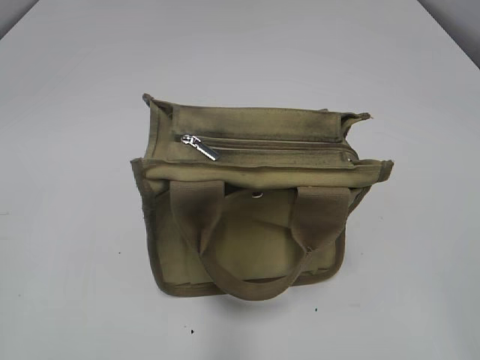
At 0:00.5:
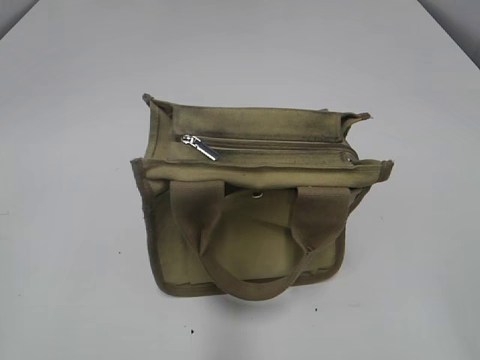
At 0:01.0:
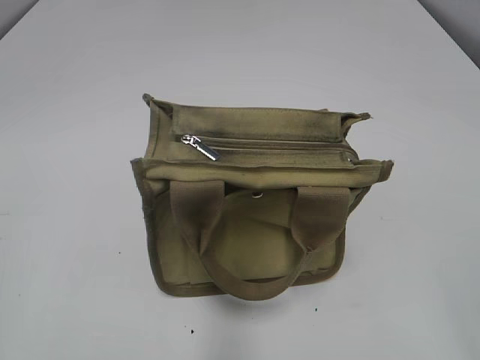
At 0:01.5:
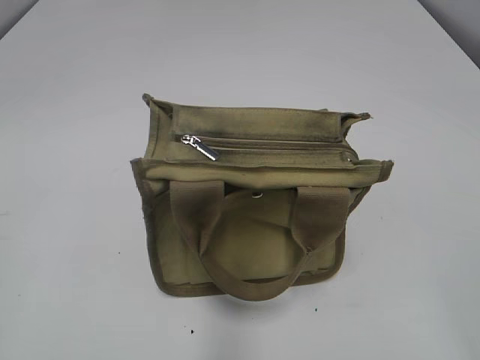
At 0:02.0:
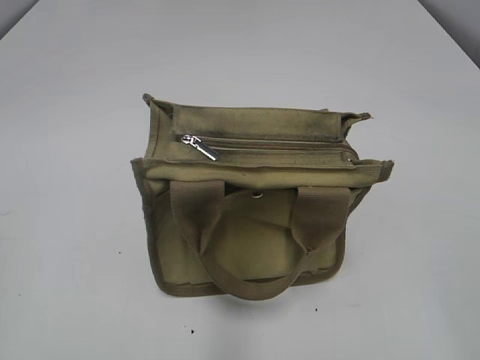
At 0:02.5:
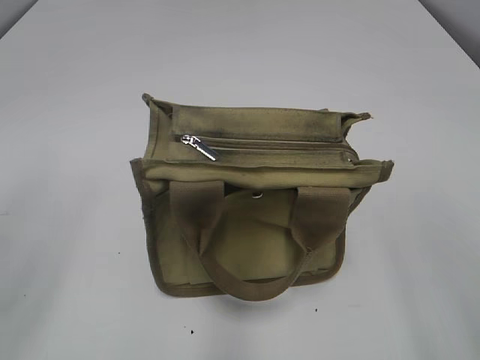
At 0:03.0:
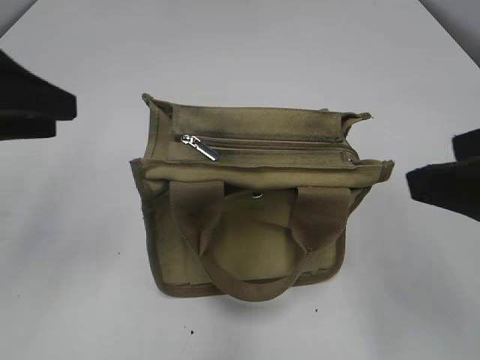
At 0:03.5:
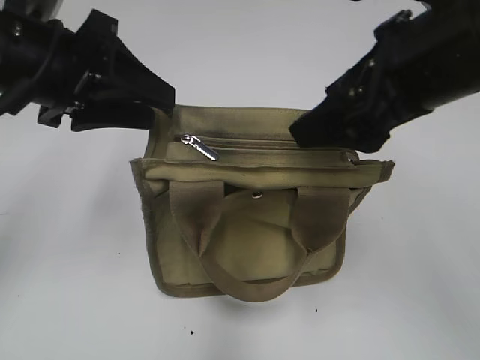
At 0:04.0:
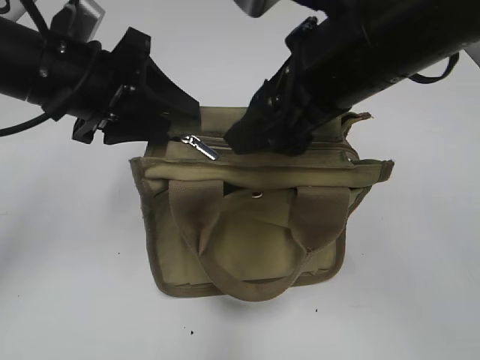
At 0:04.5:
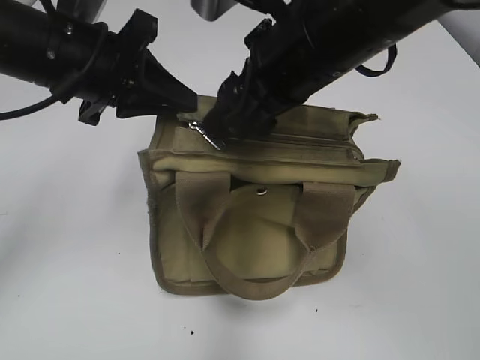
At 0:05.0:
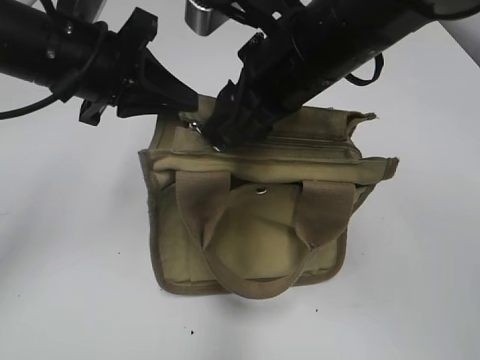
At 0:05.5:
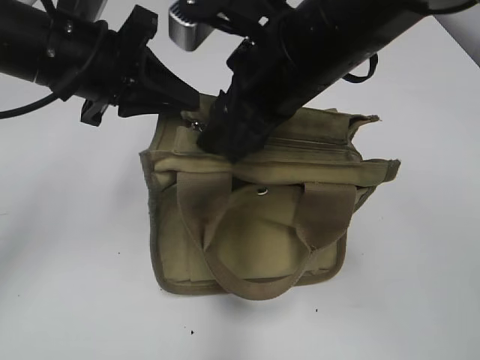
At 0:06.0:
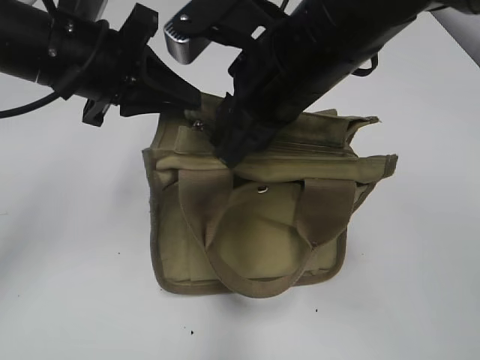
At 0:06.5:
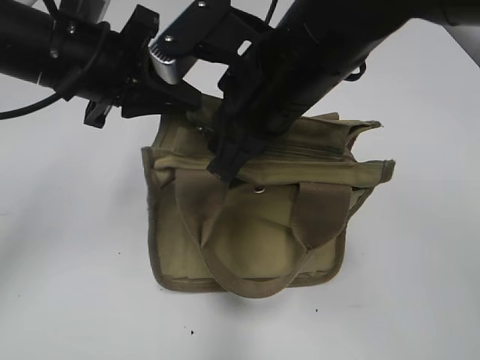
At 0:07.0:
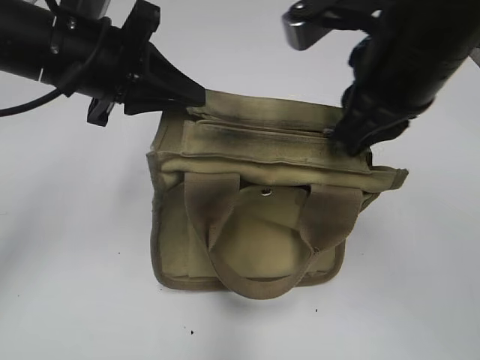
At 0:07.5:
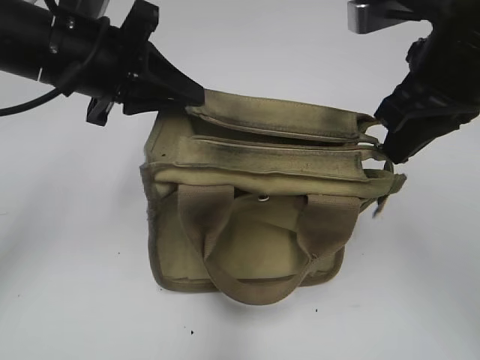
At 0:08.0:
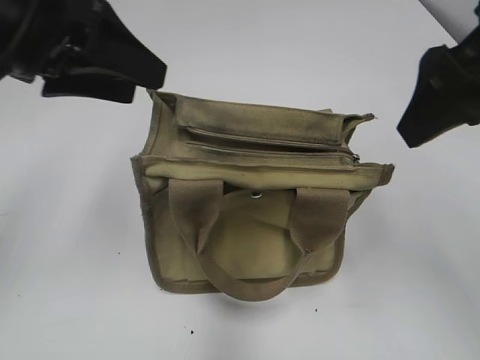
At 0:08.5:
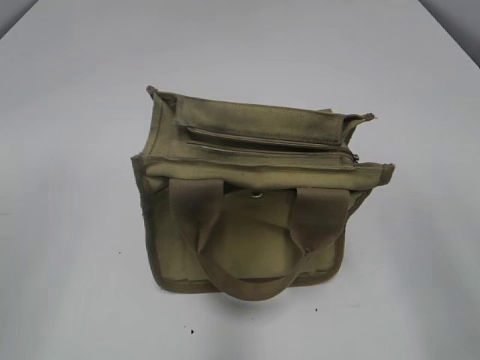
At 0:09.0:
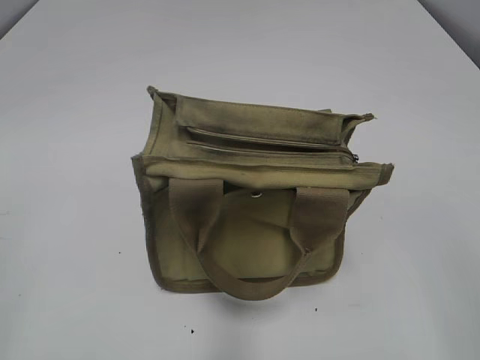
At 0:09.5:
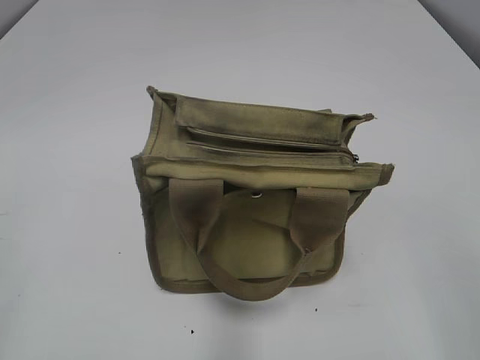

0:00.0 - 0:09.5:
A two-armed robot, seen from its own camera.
Step, 0:00.0 - 0:07.5: Pull open the zipper with your right hand.
0:02.0 - 0:04.0: The left gripper heads forward and to the right, covering some 35 cm, while the right gripper heads forward and to the left, covering roughly 30 cm.
0:04.0 - 0:05.5: The right gripper moves approximately 5 cm, and closes. Meanwhile the left gripper closes.
0:05.5 - 0:07.5: The right gripper heads to the right, covering approximately 10 cm, and closes up.
0:07.5 - 0:09.5: The right gripper travels backward and to the right by approximately 25 cm, and opens its fingers. Meanwhile the left gripper travels backward and to the left by approximately 30 cm, and opens.

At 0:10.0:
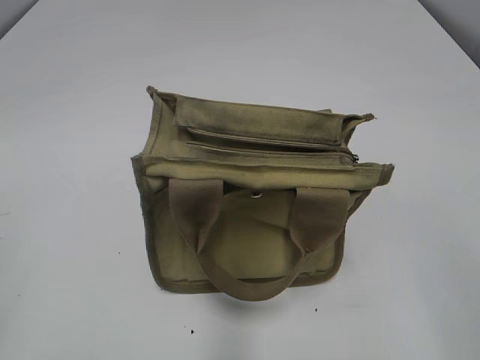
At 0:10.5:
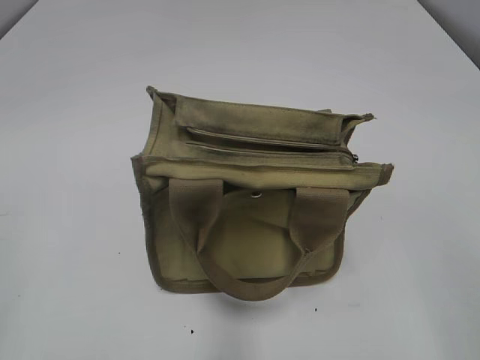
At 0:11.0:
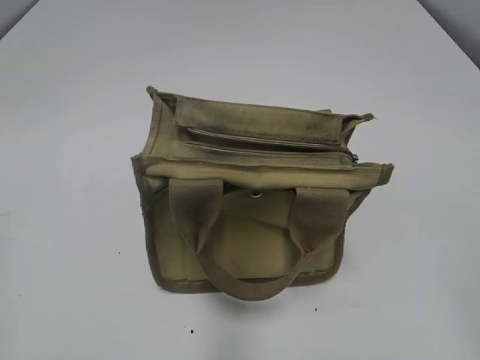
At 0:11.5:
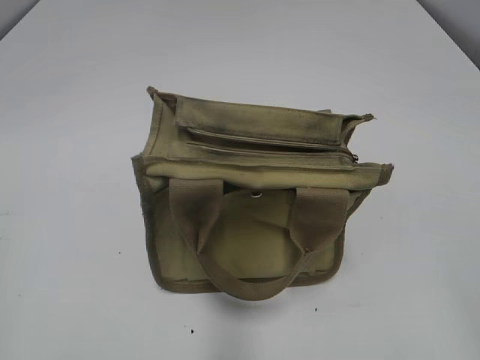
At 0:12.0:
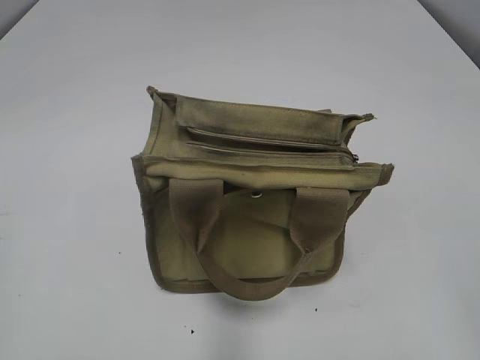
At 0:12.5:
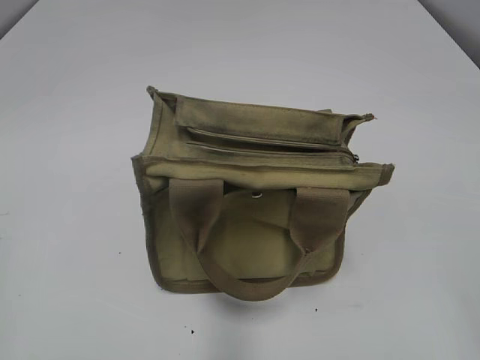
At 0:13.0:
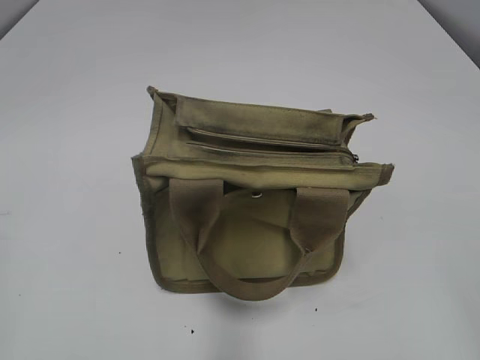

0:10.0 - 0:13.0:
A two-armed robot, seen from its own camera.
0:11.5 - 0:13.0: Both grippers stay put.

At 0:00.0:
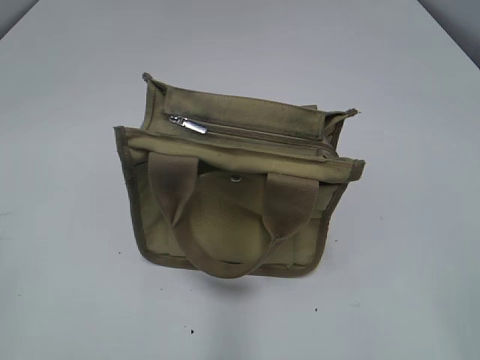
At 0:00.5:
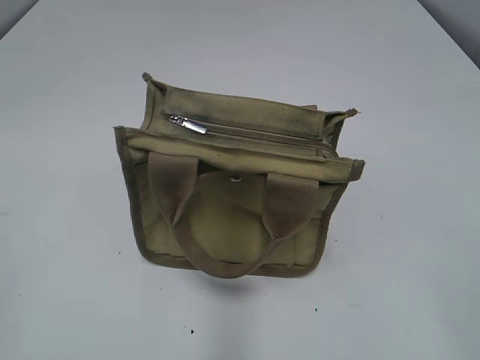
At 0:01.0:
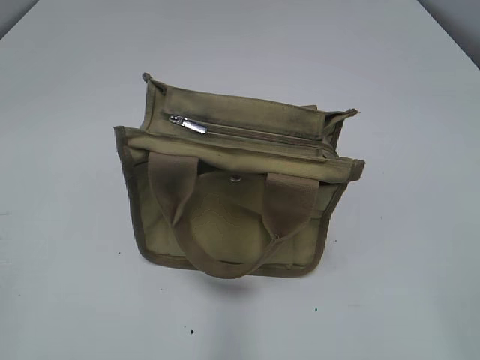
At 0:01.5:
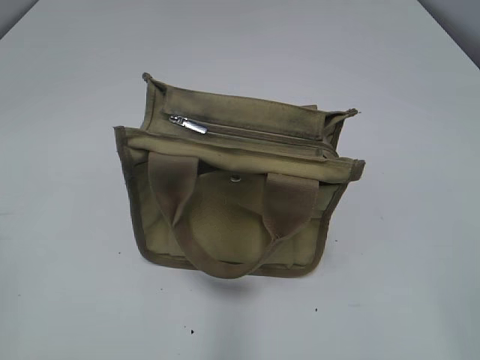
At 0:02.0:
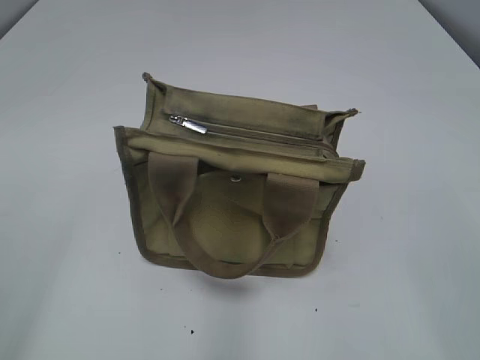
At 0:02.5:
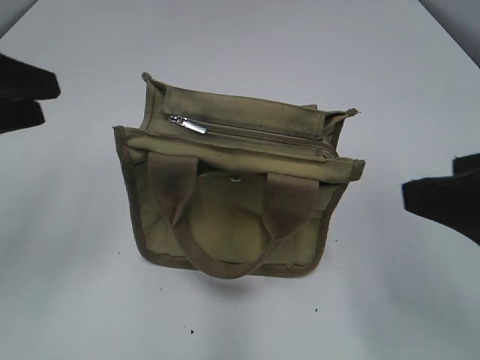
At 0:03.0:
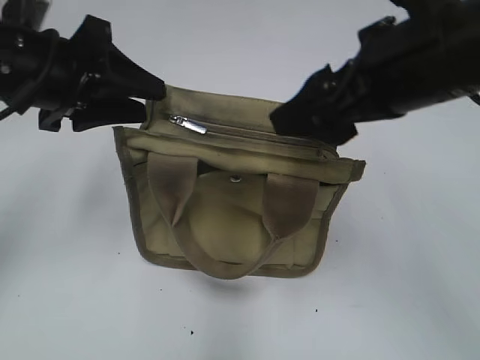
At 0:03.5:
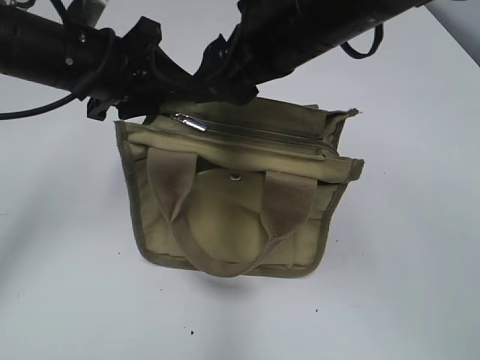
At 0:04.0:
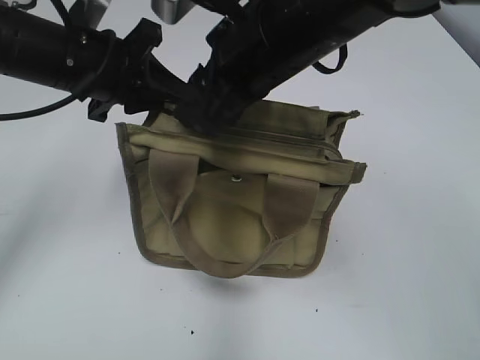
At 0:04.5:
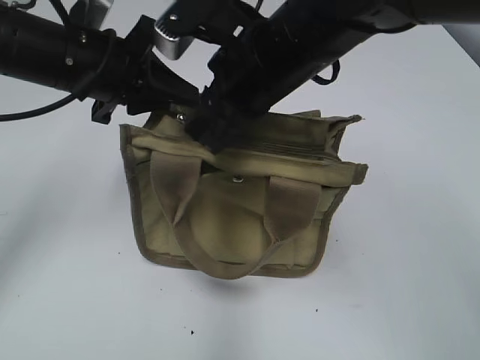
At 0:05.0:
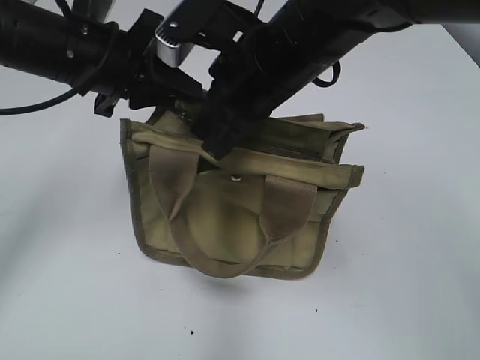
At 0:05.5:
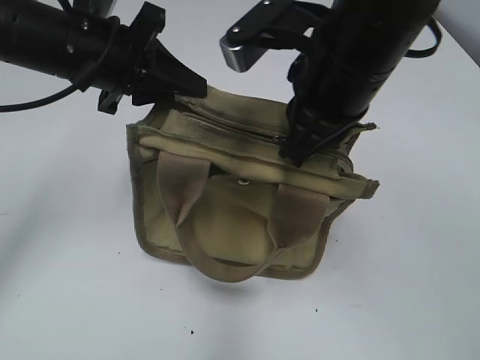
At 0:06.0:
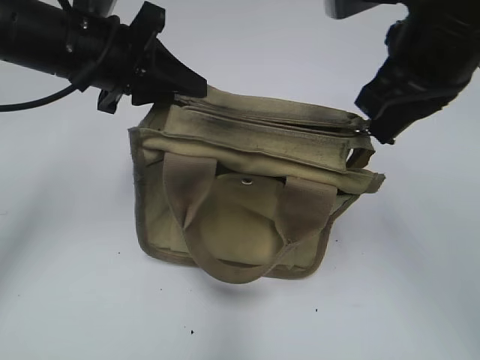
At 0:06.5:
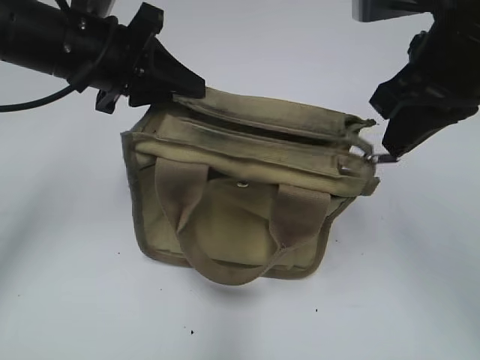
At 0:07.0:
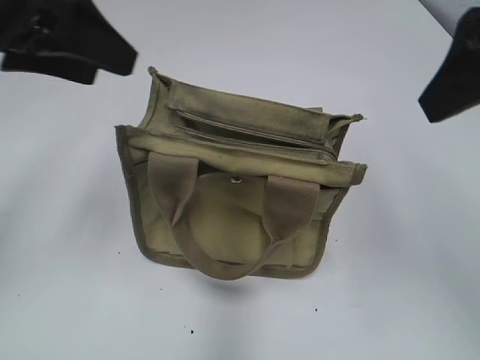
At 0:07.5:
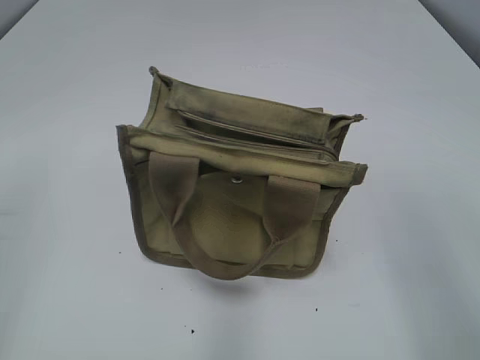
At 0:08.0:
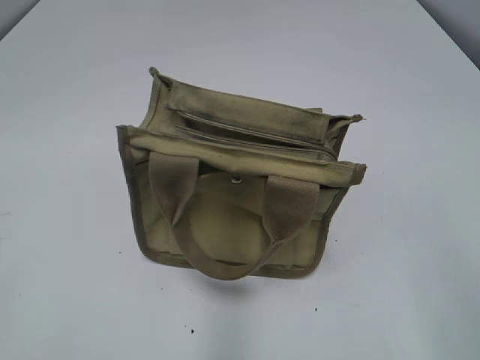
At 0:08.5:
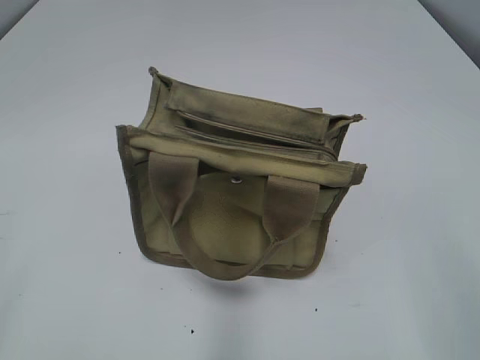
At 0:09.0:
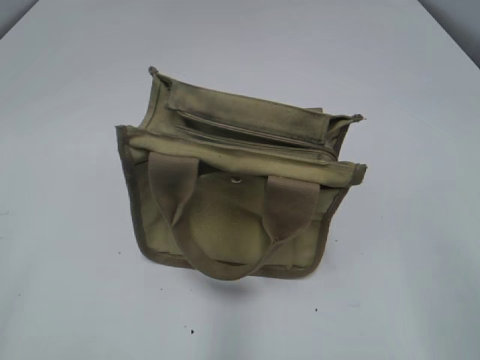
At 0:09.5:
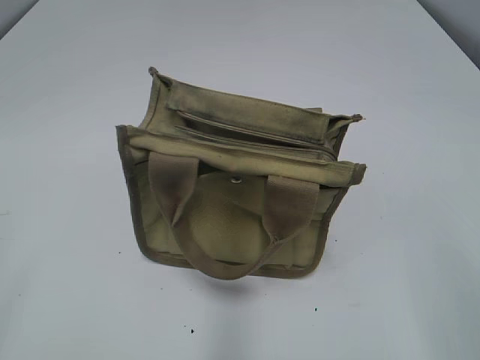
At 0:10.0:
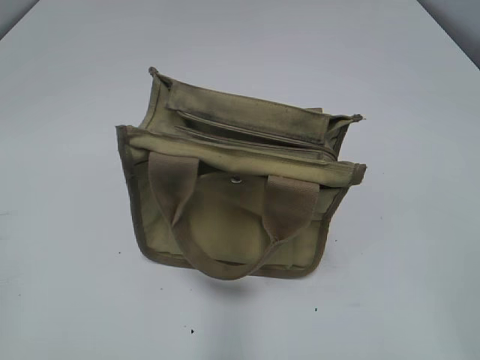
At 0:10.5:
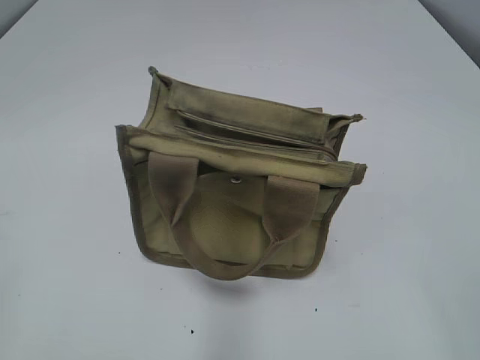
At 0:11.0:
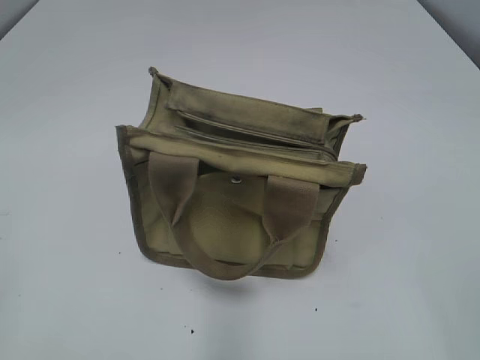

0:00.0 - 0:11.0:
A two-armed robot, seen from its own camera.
Step, 0:00.0 - 0:06.0: Pull open the zipper with your right hand.
0:02.0 - 0:03.5: The left gripper heads forward and to the right, covering about 30 cm; the right gripper heads forward and to the left, covering about 35 cm.
0:03.5 - 0:05.5: The right gripper closes its fingers, while the left gripper closes up.
0:05.5 - 0:07.5: The left gripper heads backward and to the left, covering some 30 cm, and opens up; the right gripper heads backward and to the right, covering approximately 25 cm, and opens its fingers.

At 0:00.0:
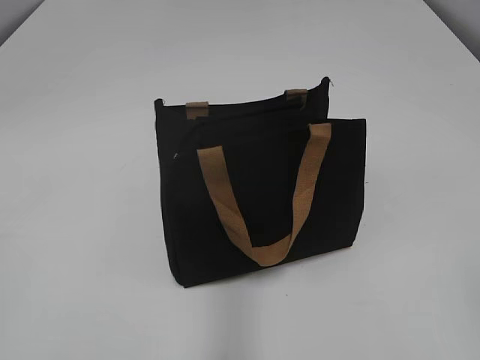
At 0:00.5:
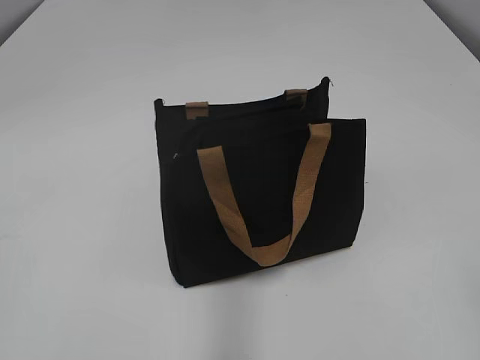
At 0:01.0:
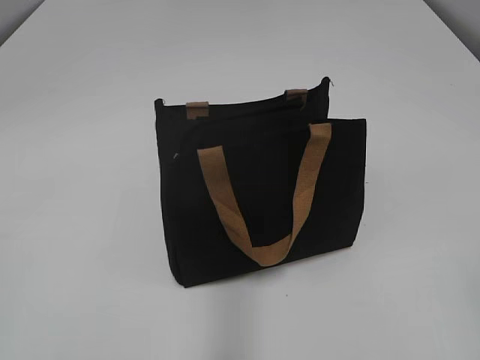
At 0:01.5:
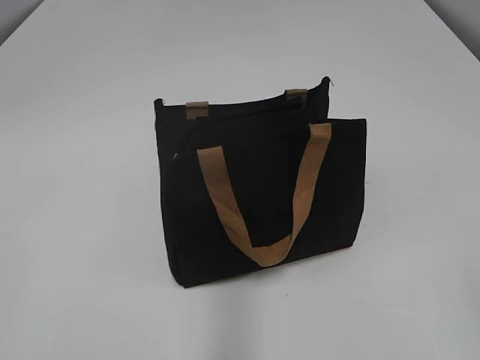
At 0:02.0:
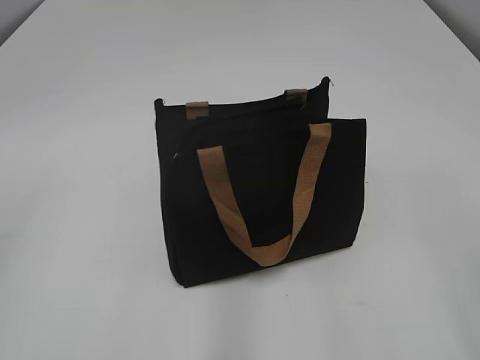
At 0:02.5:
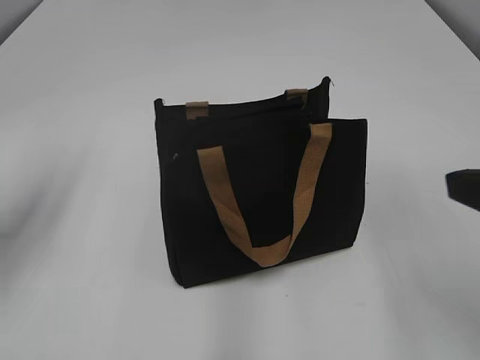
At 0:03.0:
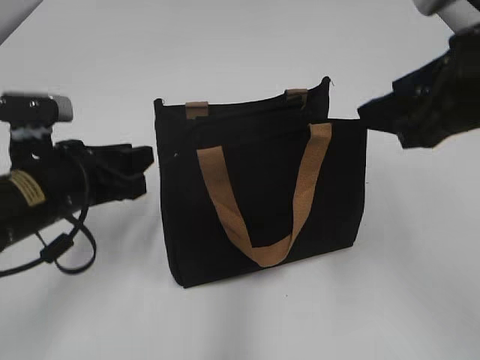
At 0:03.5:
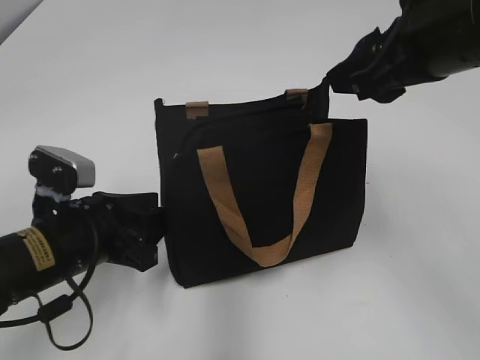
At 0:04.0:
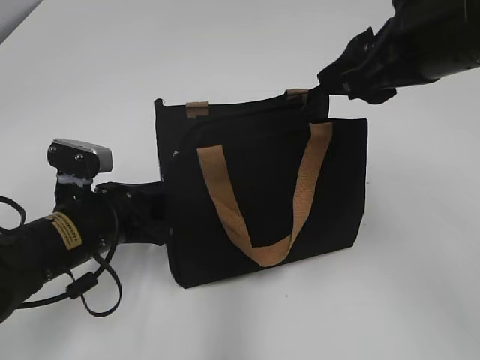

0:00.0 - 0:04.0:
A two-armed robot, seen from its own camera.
0:02.0 - 0:04.0: The left gripper heads downward, forward and to the right, covering some 35 cm. The right gripper goes about 25 cm forward and to the left.
